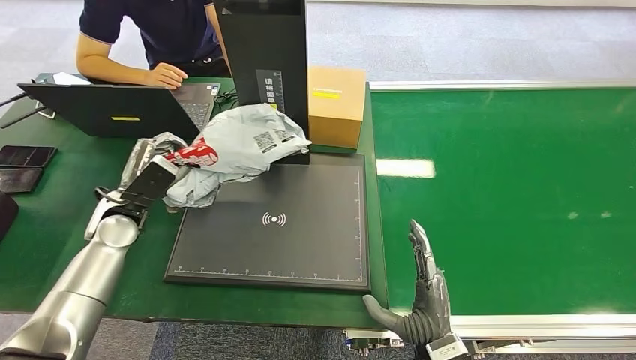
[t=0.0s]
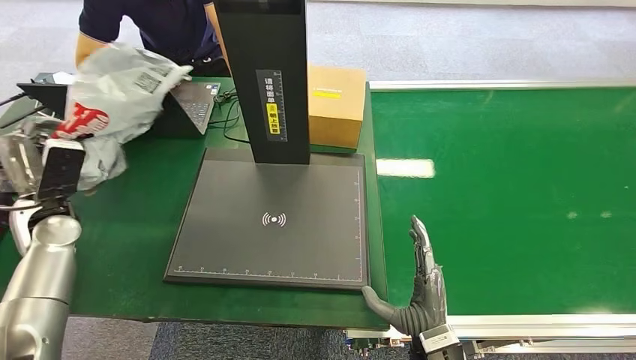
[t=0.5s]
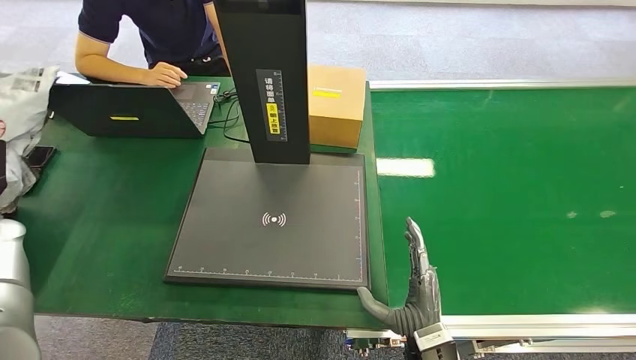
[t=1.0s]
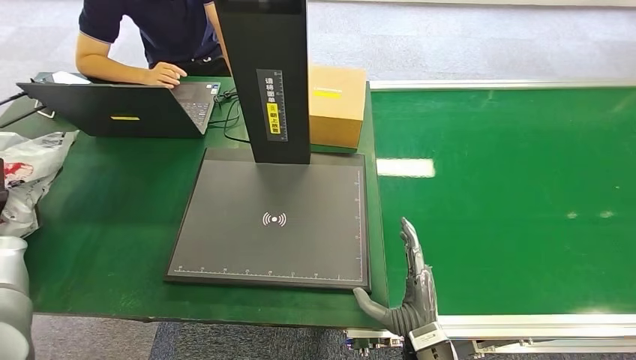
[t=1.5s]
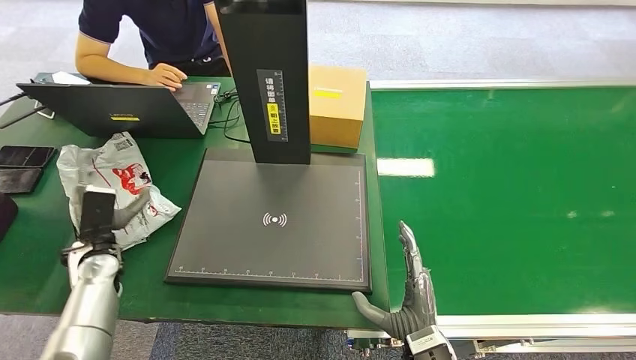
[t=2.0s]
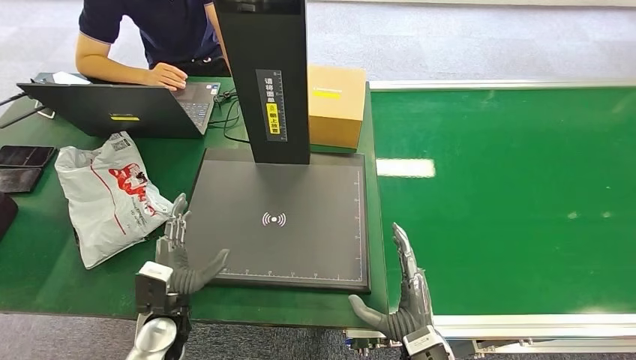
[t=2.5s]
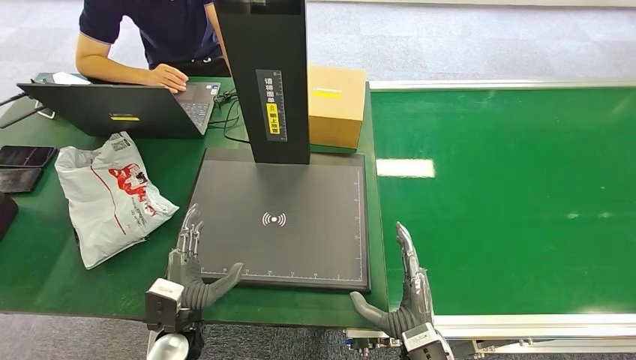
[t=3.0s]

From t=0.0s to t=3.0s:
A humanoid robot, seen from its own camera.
Task of the whole recording: Weigh the package on the weighing device and place it in the left basket.
Step, from t=1.0s to t=3.0s: Place the package into the parcel locker.
From t=0.0s to t=1.5s: The left hand shifts approximately 20 cm to the left.
From t=1.5s to t=3.0s: The left hand moves to the right, some 35 cm.
